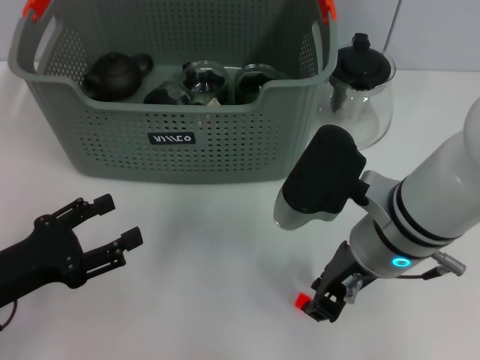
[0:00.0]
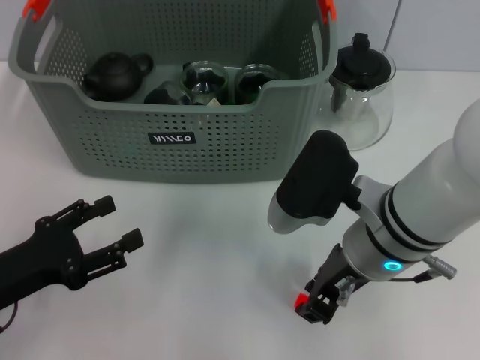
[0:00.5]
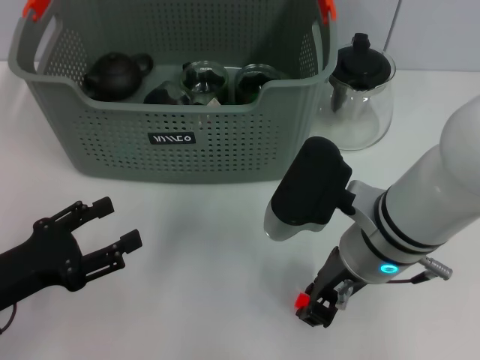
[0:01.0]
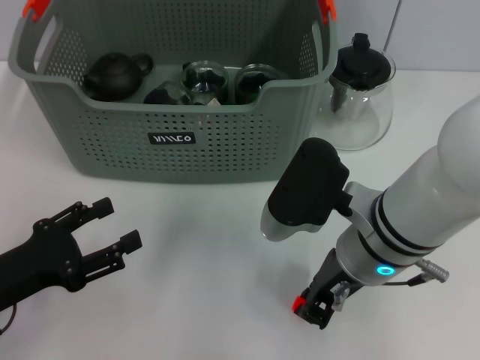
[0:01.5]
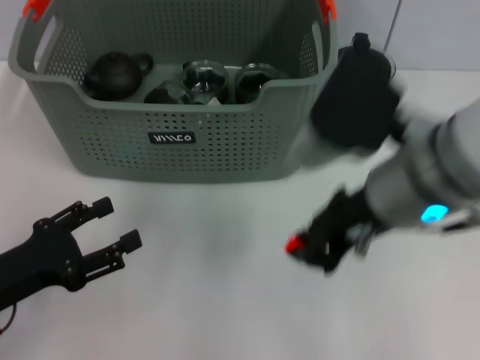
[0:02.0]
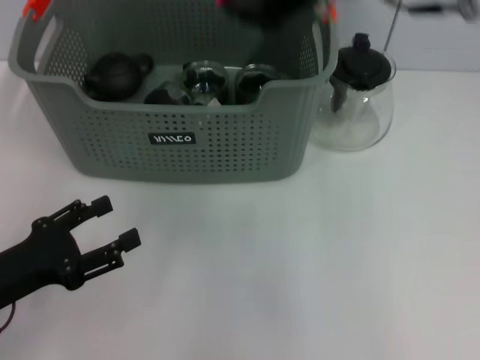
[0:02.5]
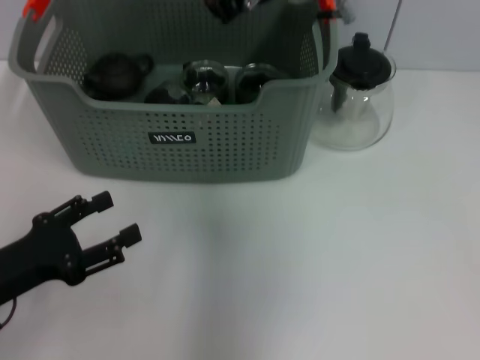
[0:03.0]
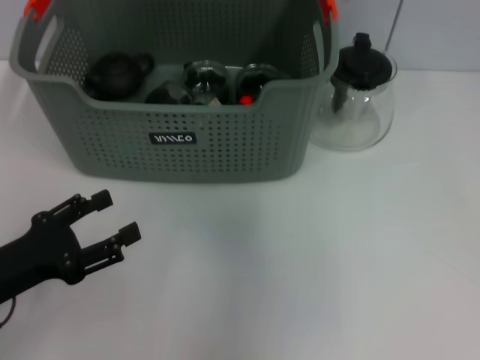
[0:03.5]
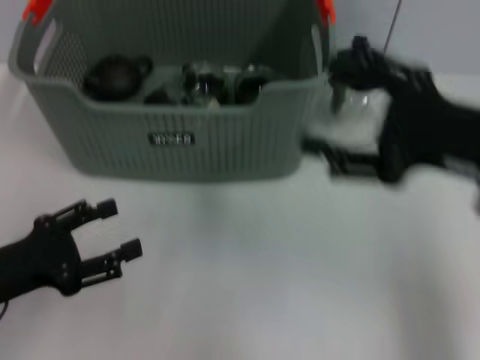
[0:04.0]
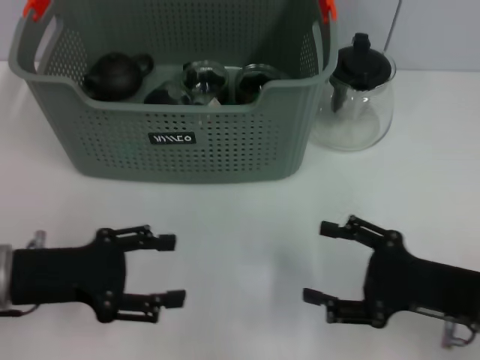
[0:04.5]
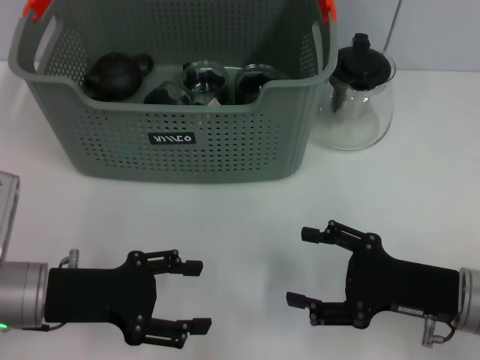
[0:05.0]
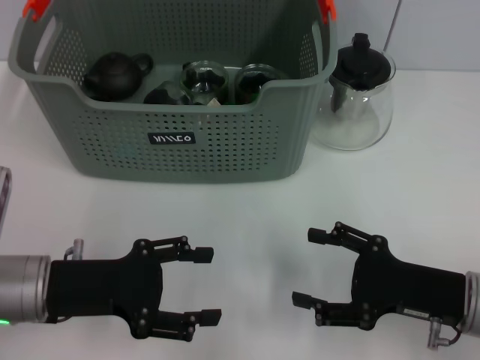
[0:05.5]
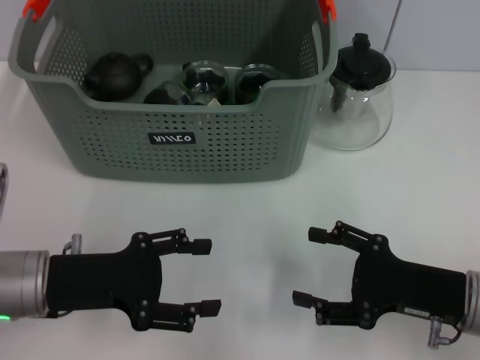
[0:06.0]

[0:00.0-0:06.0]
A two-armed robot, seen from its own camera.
Task of the whole recording: pick up the teacup on the table and place it into the storage bin, pick up the block on the table and place it into the storage bin.
Step, 0:00.0 to 0:01.5: Grasp the orange block with right gripper.
Step, 0:02.0 to 0:03.5: Place the orange block in the storage box with right gripper.
0:00.0 to 0:02.0: The right gripper shifts approximately 10 cm upward.
0:02.0 to 0:04.0: The right gripper travels to the right by approximately 10 cm, and opens.
0:04.0 to 0:06.0: The right gripper travels downward by approximately 15 cm. Meanwhile the left gripper heads to the right, covering roughly 5 cm.
